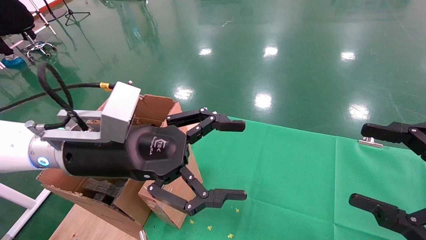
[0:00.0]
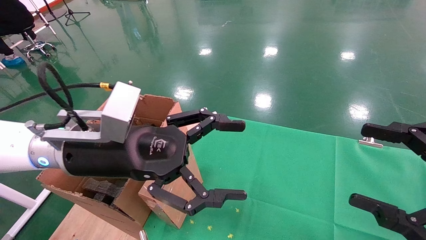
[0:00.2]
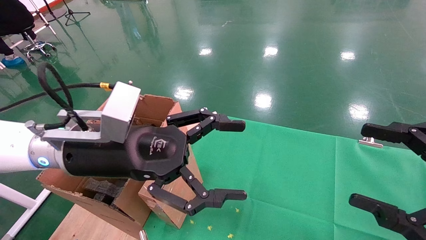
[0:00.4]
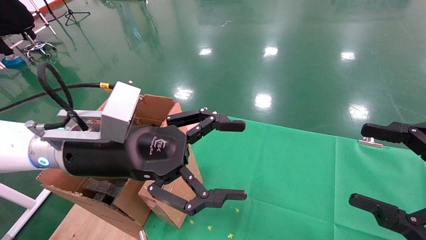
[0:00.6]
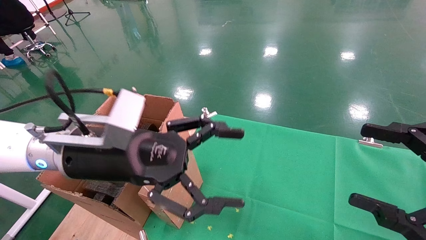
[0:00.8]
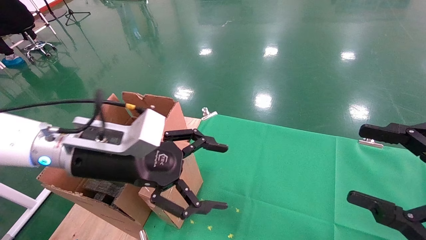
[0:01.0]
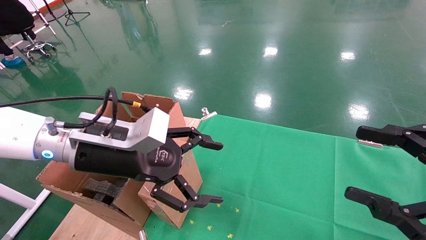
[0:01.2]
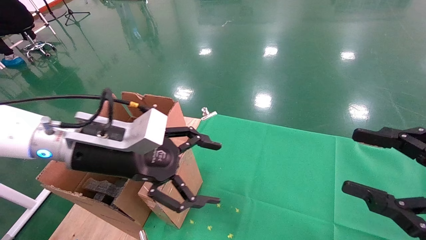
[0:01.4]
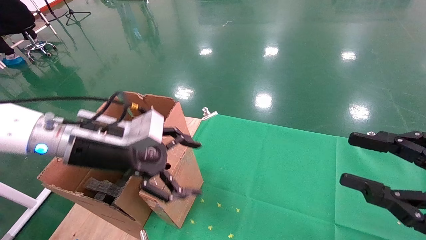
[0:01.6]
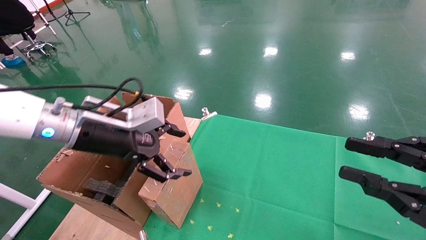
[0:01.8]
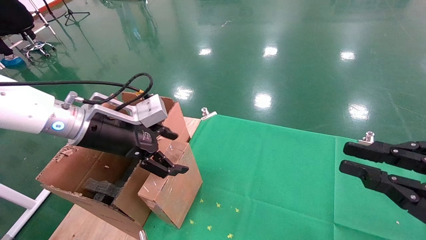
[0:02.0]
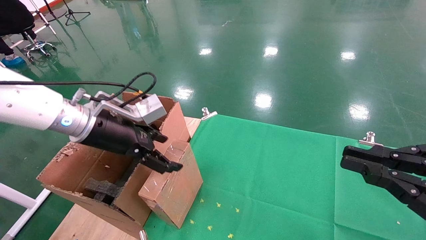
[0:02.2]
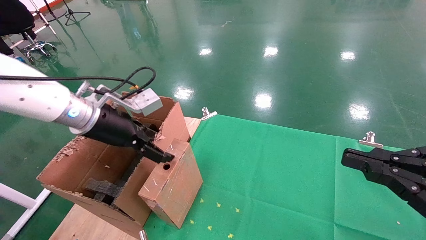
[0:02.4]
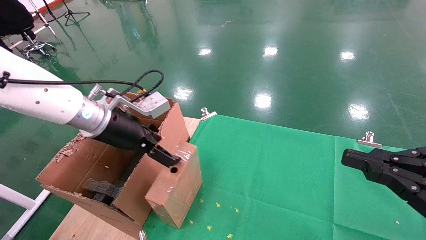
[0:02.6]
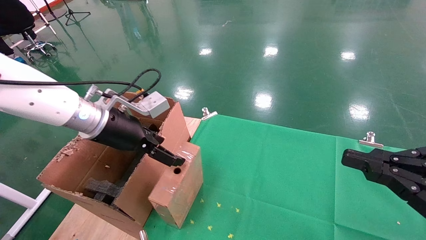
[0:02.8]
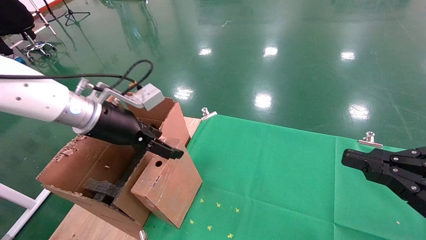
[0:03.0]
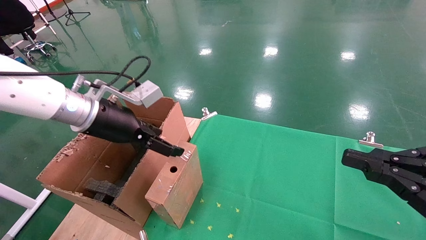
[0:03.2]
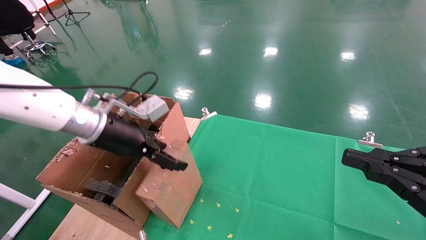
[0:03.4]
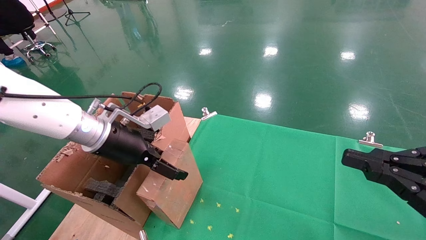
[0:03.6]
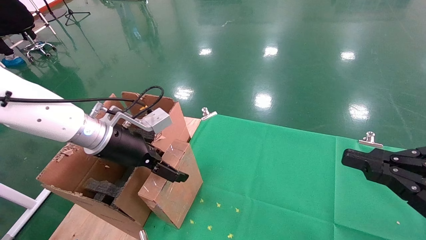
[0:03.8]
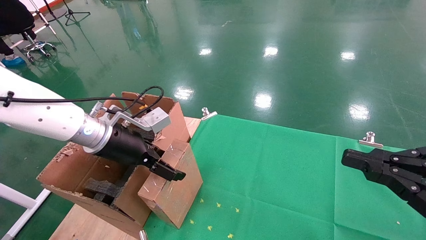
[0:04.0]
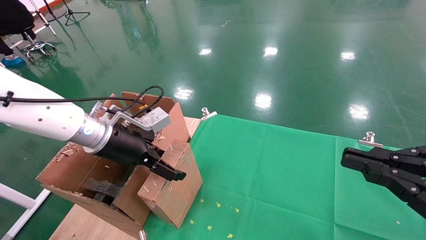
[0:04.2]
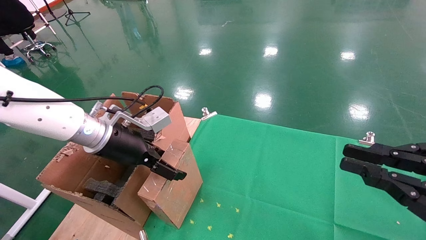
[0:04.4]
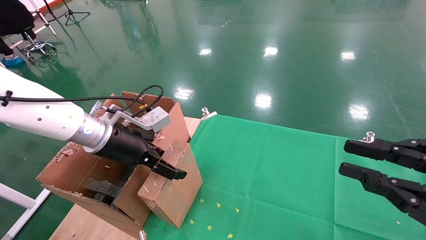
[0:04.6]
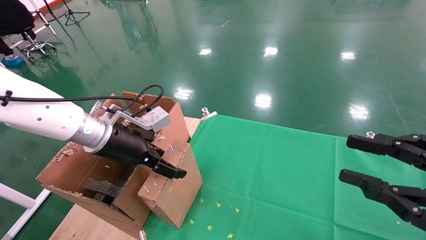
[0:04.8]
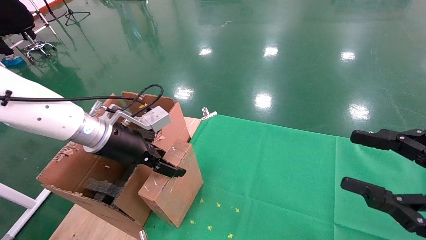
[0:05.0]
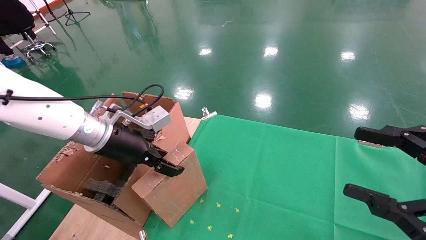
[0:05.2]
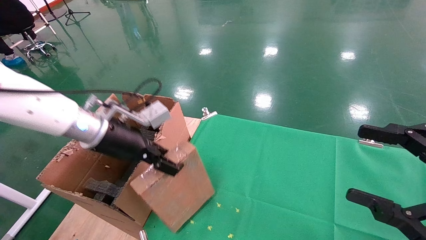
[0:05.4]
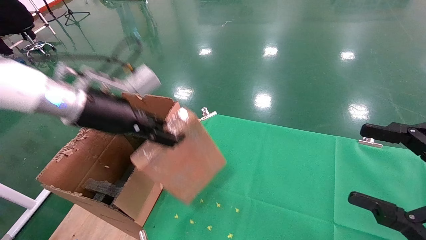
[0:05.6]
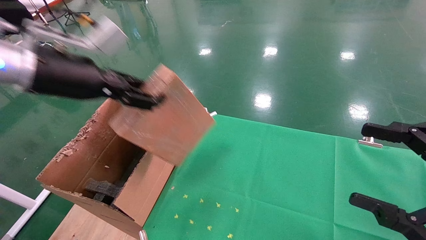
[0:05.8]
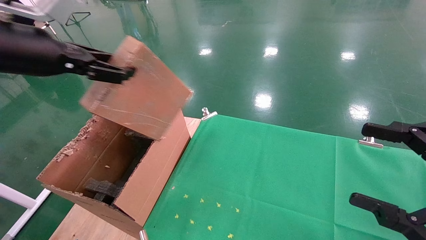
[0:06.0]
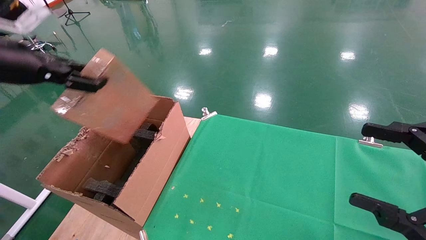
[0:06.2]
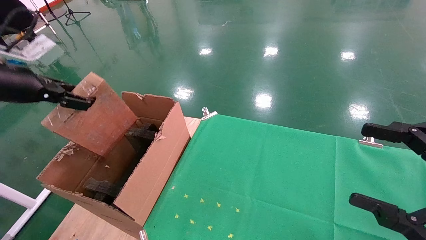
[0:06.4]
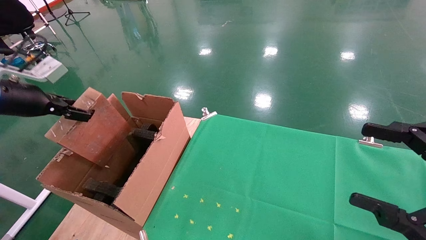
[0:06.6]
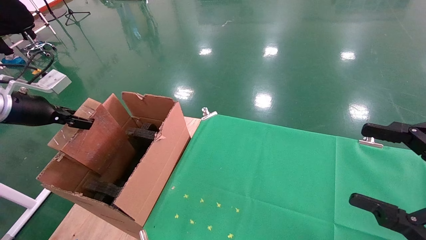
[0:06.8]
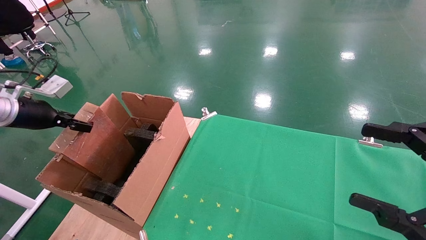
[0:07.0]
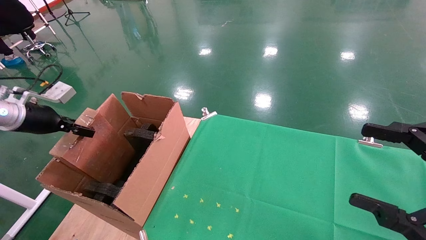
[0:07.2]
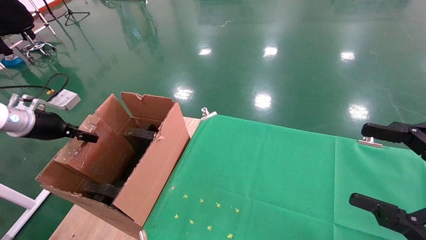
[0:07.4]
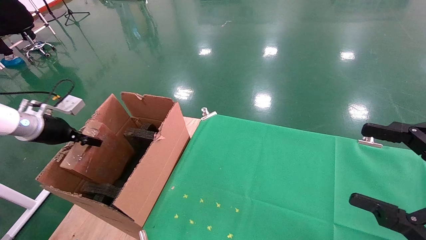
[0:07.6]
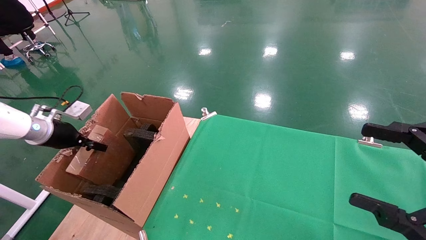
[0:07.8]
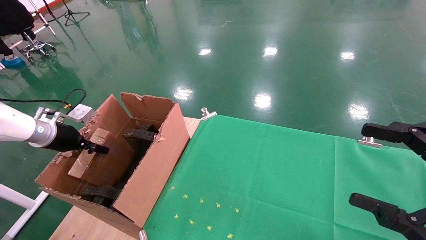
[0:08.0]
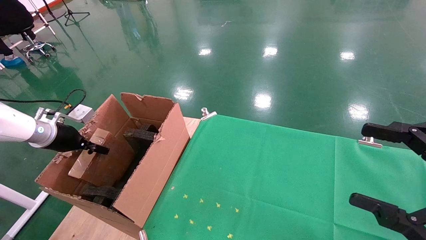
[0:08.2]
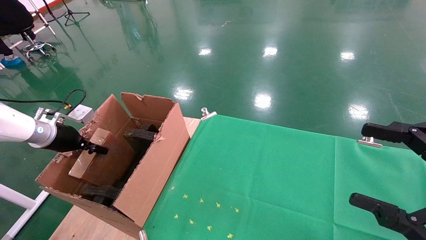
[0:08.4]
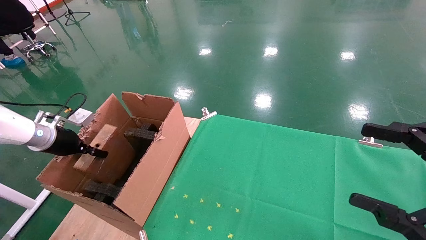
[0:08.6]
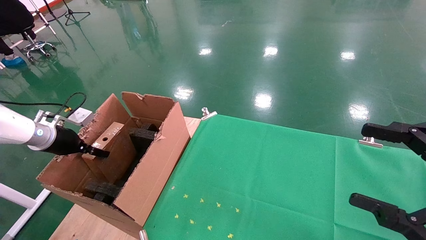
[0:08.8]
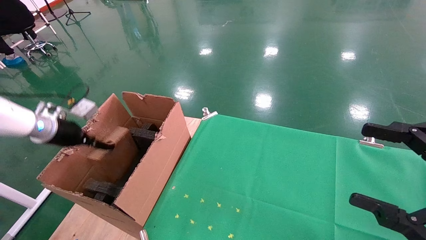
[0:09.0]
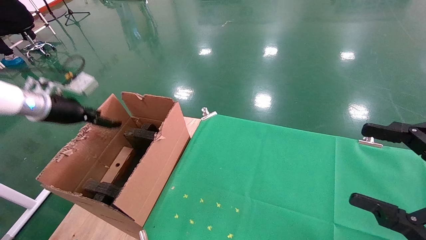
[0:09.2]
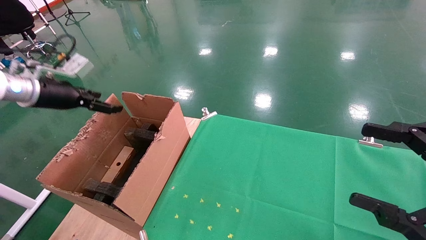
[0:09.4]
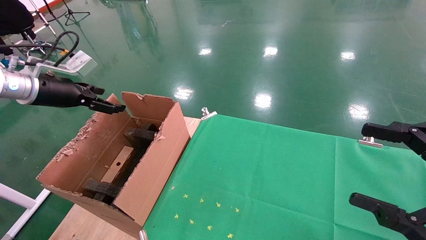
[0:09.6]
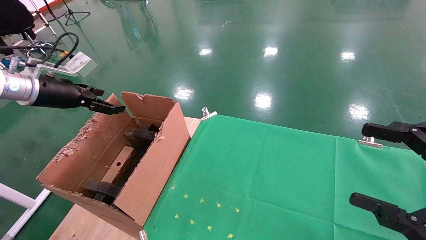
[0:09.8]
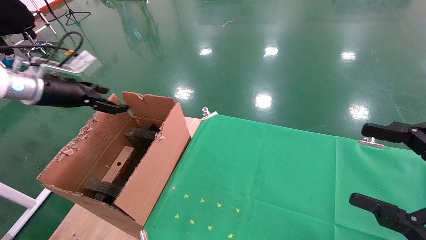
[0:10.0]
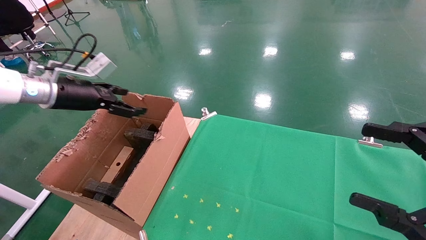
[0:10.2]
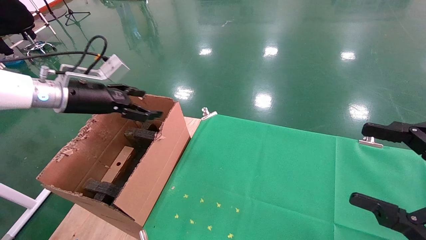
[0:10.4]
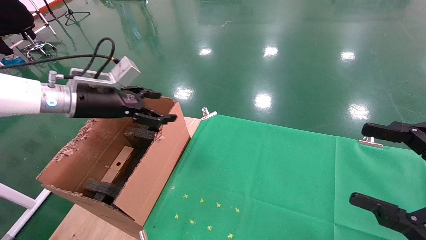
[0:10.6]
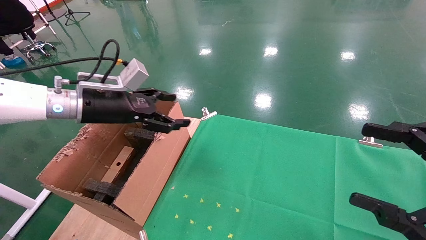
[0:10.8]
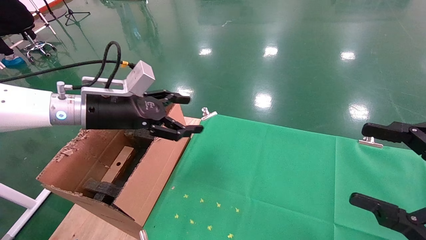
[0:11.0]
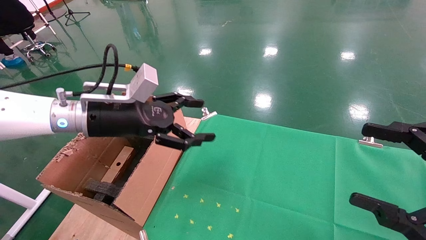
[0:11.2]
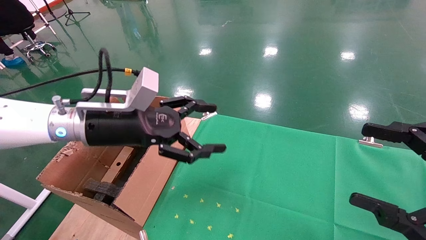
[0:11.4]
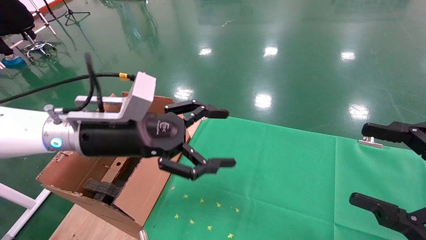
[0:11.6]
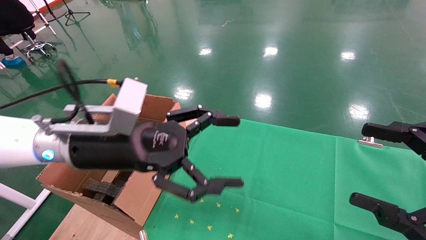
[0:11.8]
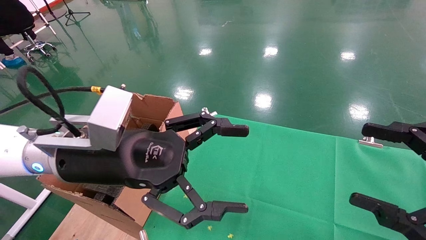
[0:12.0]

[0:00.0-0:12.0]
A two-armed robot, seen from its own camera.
Task of the whole recording: using a robotic arm to pick up a cardboard box and palace it the carton.
Step, 1.2 to 5.4 s: Pick up the mouse and the power cord paper box.
Step, 5.6 to 8.6 s: Place the mouse and the power cord paper box into the container.
1.6 to 3.0 s: The left gripper travels forward by roughly 5 cm, while the right gripper closes up.
3.0 to 4.4 s: The grippers move only a little.
4.4 to 6.0 s: The left gripper shifts some 20 cm upward, to the left and backward, and closes up; the right gripper opens its fingers.
6.0 to 7.6 s: The left gripper travels downward, to the left and forward by about 25 cm.
7.6 to 9.0 s: The left gripper opens its fingers.
9.0 to 10.4 s: The left gripper moves to the right and upward, roughly 15 cm, and opens its fingers.
10.4 to 12.0 s: The left gripper shifts approximately 20 cm to the right and backward.

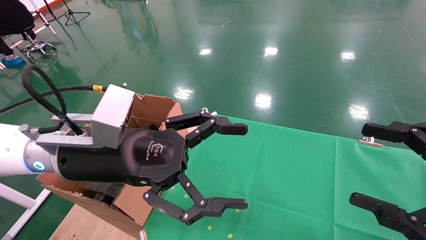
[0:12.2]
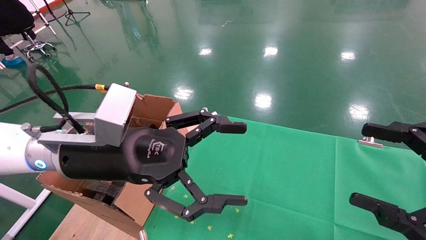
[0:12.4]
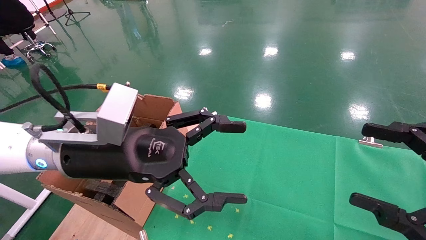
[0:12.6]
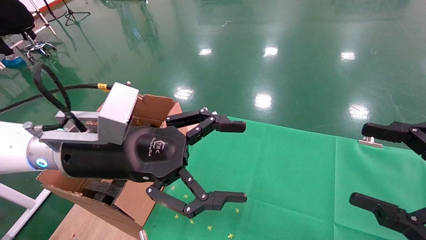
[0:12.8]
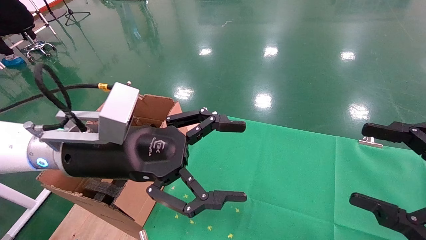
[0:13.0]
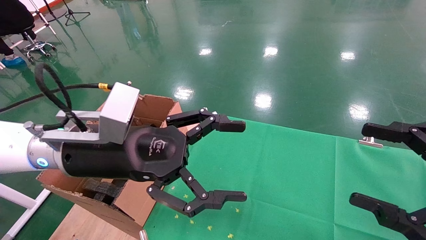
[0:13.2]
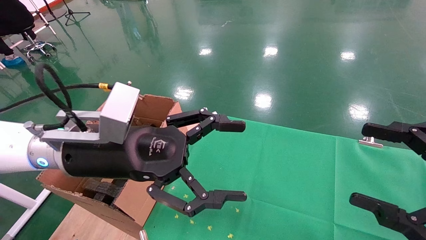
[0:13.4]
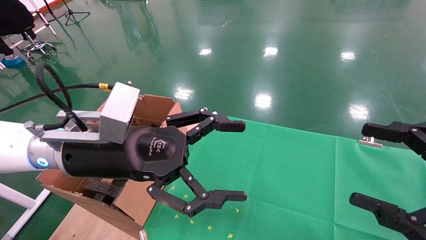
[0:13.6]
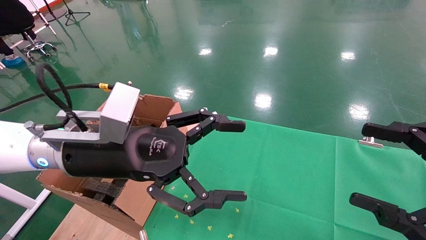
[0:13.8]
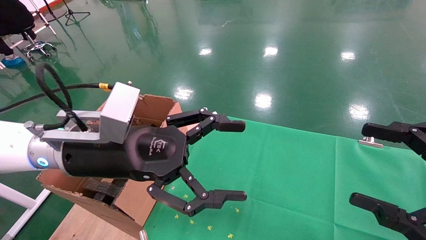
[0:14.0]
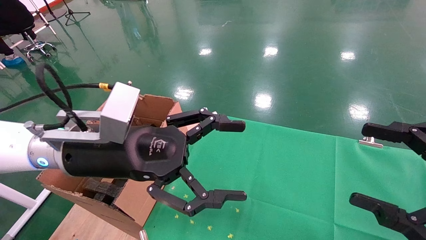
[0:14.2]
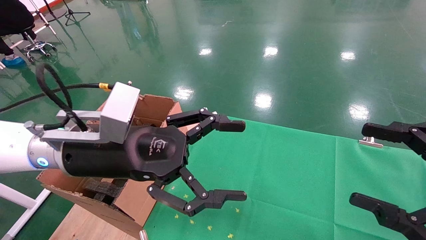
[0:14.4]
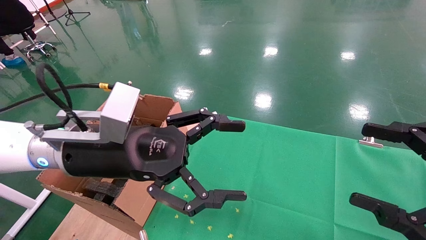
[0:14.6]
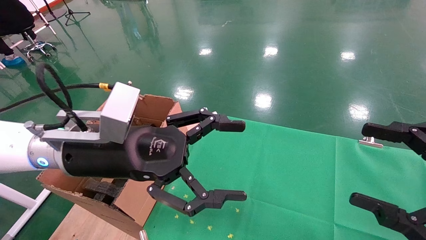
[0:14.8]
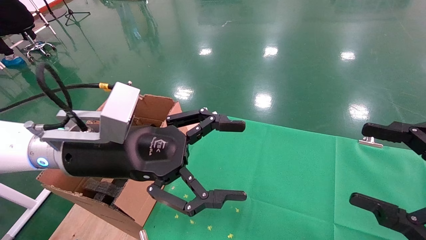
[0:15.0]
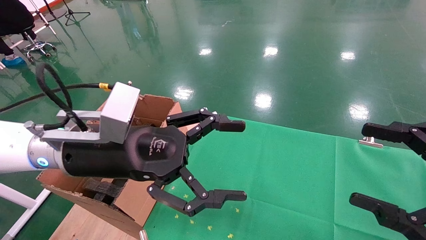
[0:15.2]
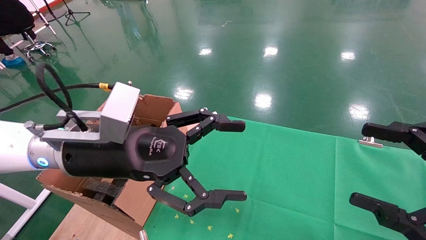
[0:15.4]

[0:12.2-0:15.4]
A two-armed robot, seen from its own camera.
Task of the whole recording: using a robotic arm to pick up a cardboard box and palace it the carton.
12.2 to 15.4 s: The two grippers keep their place.

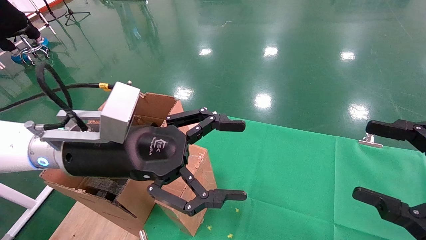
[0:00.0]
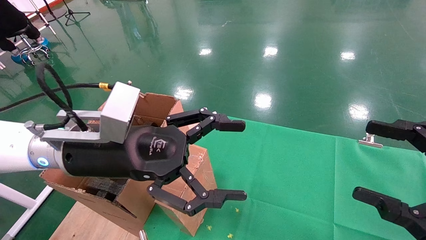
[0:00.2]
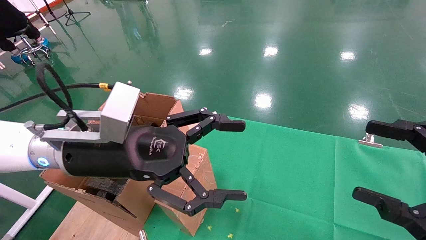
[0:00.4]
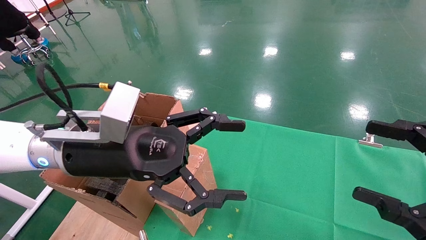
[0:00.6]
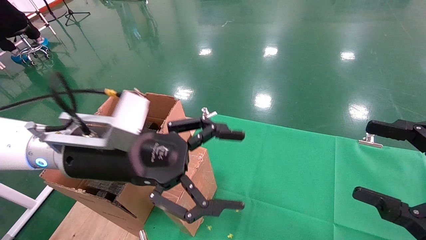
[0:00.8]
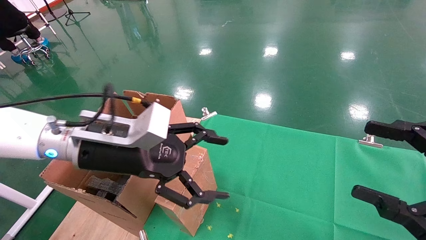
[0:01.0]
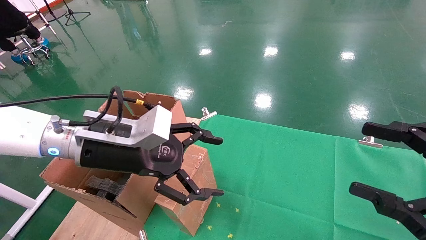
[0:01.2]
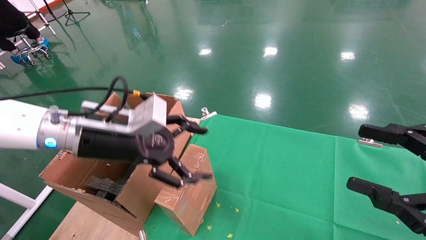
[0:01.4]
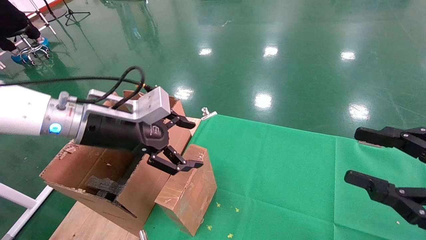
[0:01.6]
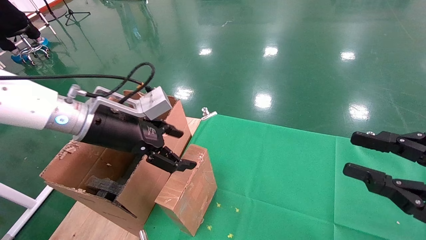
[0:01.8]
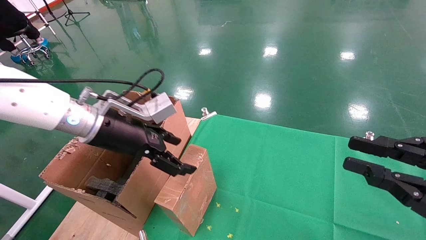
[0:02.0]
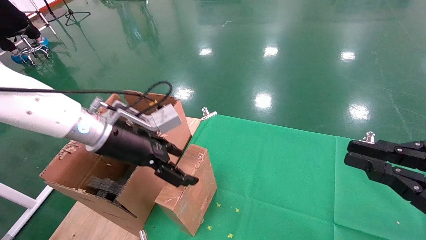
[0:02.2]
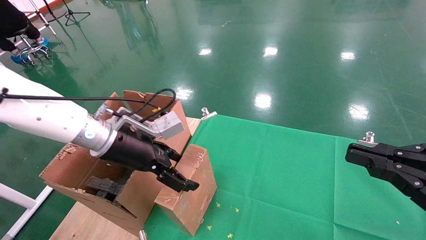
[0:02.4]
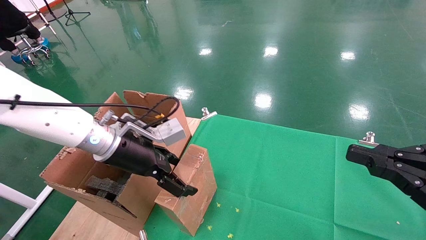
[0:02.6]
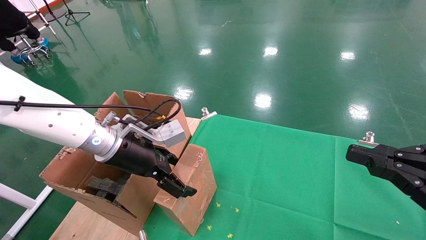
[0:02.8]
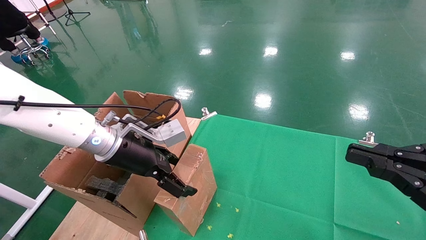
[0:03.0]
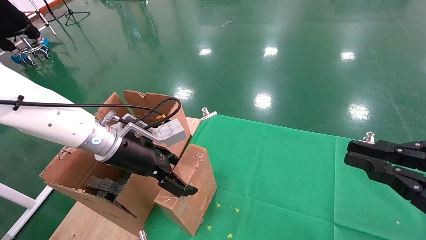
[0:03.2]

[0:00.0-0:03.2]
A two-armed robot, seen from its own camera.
Task of the whole recording: using a robotic arm to pick up a cardboard box and palace it the carton.
0.0 to 1.6 s: The left gripper travels forward by about 5 cm.
1.6 to 3.2 s: The right gripper closes up, while the left gripper changes place by roughly 5 cm.
